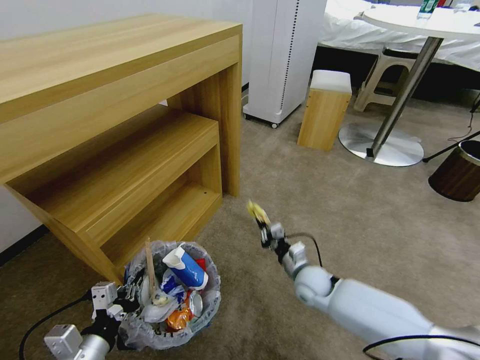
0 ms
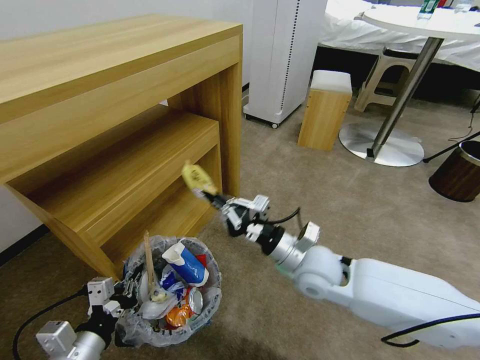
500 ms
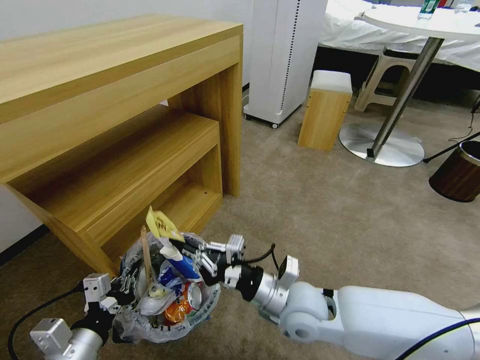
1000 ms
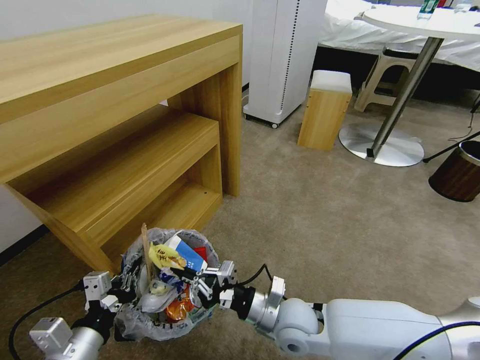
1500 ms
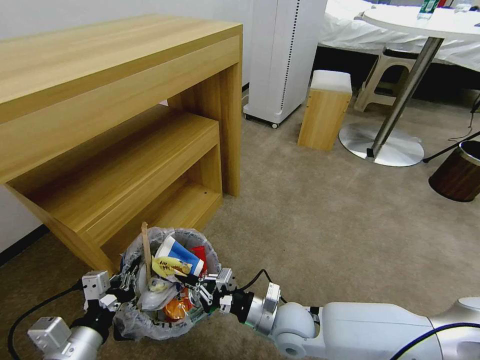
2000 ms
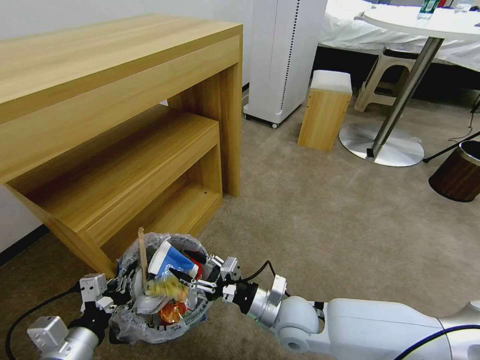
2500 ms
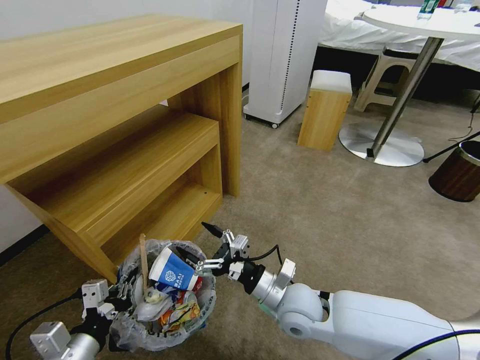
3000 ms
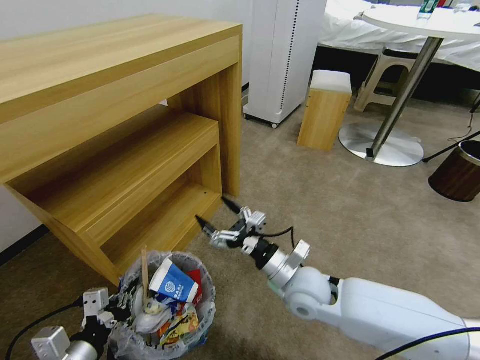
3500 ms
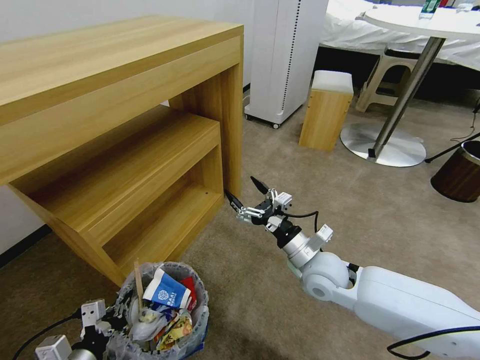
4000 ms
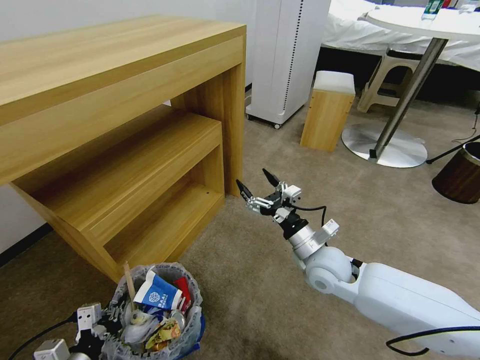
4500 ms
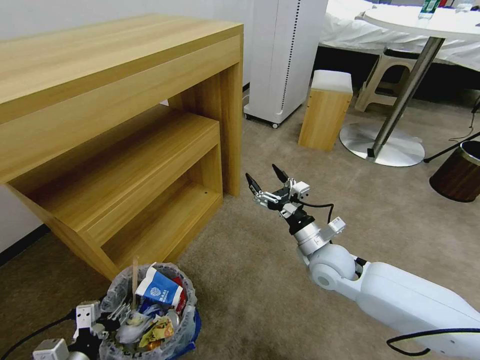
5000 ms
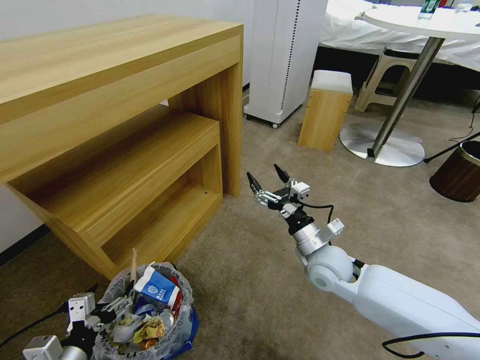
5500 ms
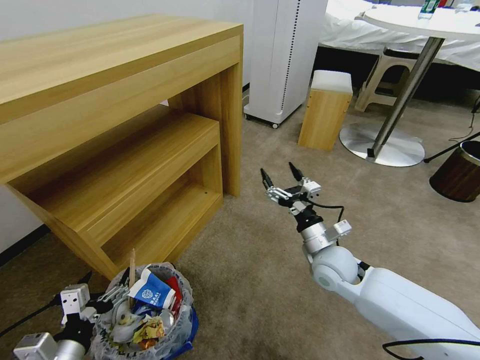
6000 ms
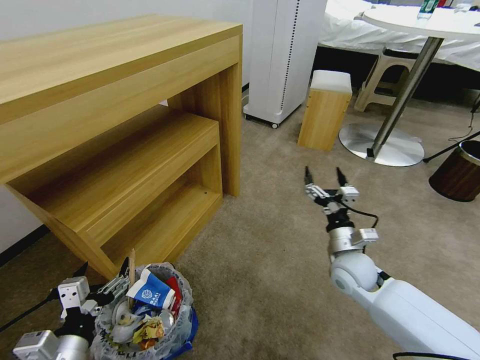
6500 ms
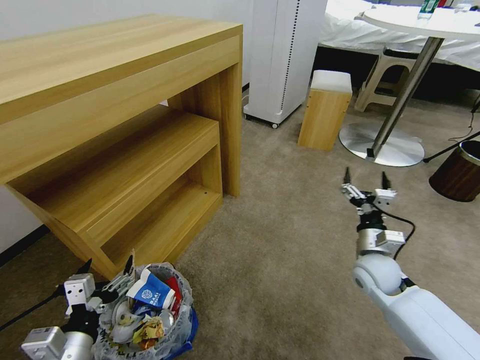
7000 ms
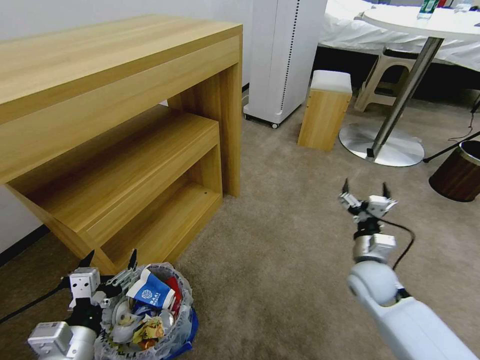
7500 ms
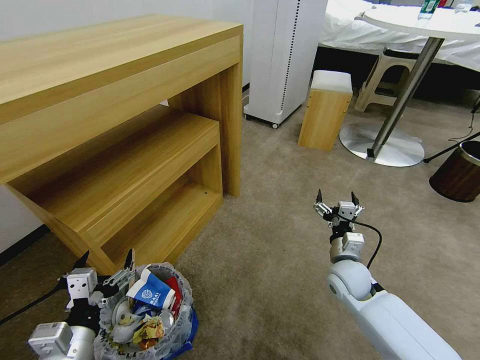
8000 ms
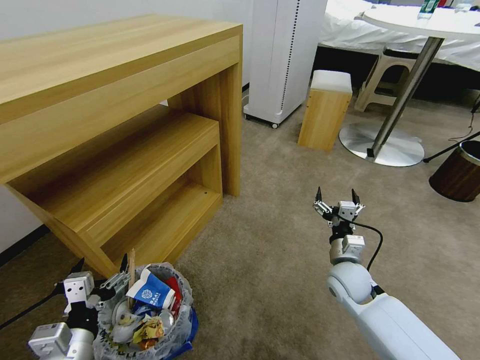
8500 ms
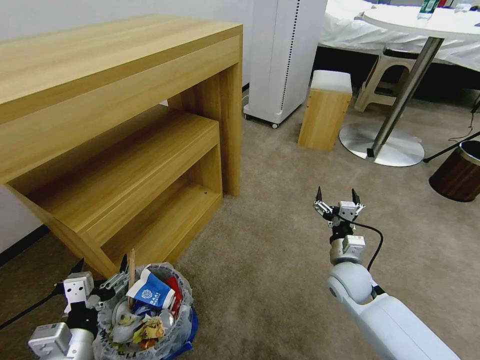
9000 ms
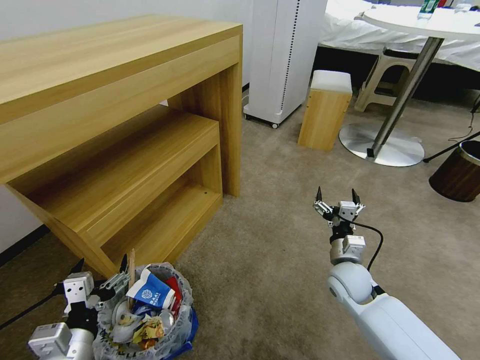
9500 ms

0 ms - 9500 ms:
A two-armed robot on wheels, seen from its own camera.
Task of the whole recording: Pick up the trash bin and place the garbage on the floor into it.
0 ms - 2000 ms: The right gripper heads backward, to the left and upward, covering some 15 cm.
2000 ms - 4000 ms: The right gripper moves forward, upward and to the right, some 15 cm, and opens up. Meanwhile the left gripper travels downward by roughly 5 cm.
4000 ms - 5500 ms: The left gripper opens its fingers.
5500 ms - 7500 ms: The right gripper moves to the right, about 10 cm, while the left gripper heads upward, covering roughly 5 cm.
7500 ms - 9500 ms: The grippers move only a little.

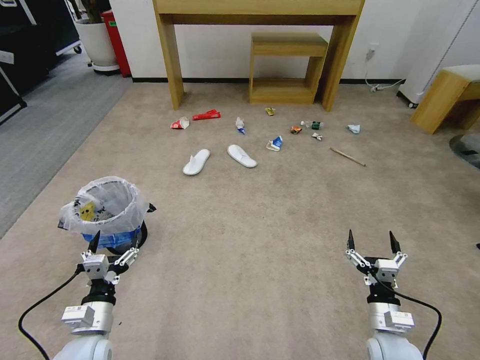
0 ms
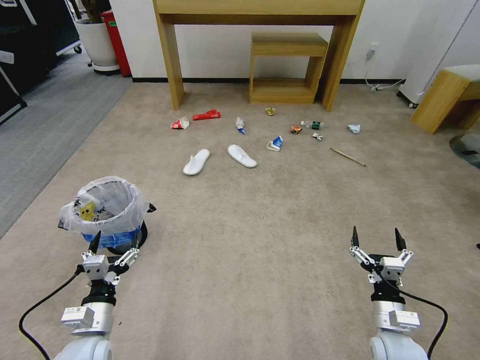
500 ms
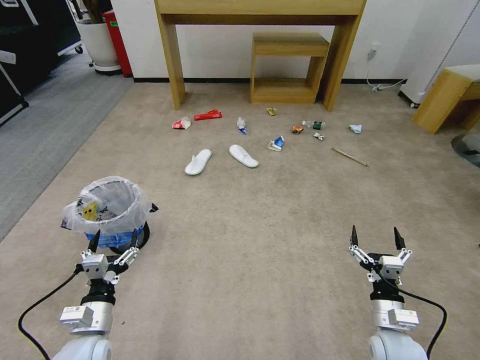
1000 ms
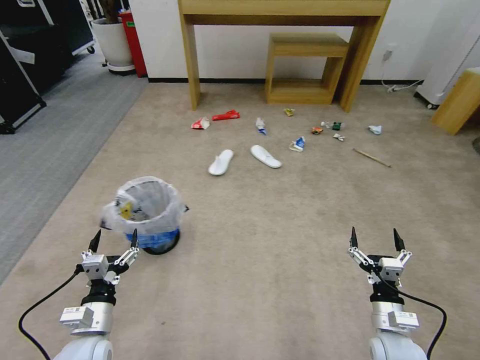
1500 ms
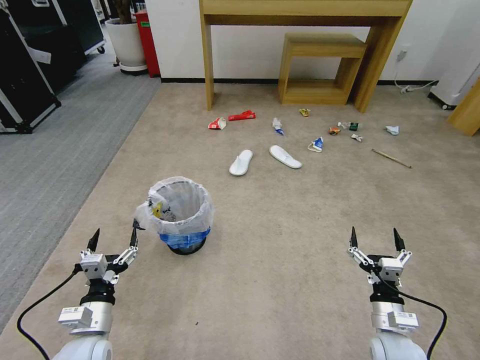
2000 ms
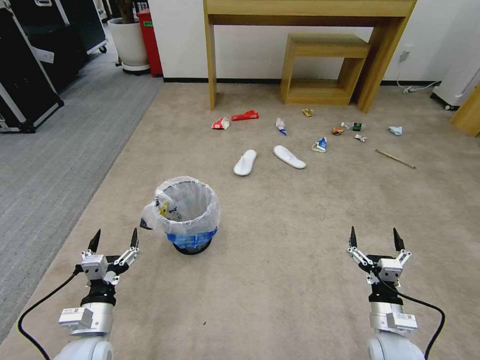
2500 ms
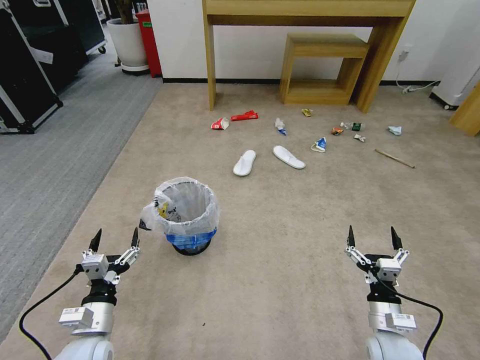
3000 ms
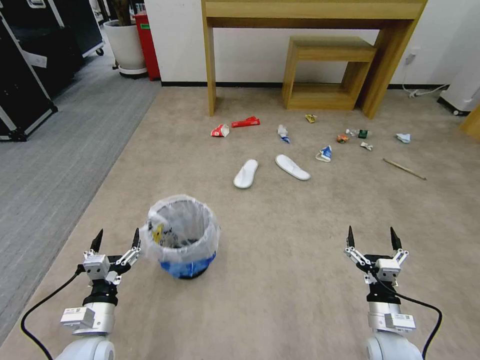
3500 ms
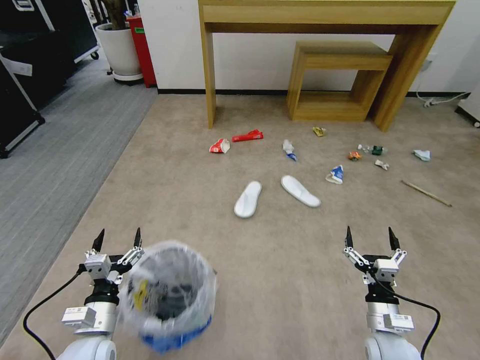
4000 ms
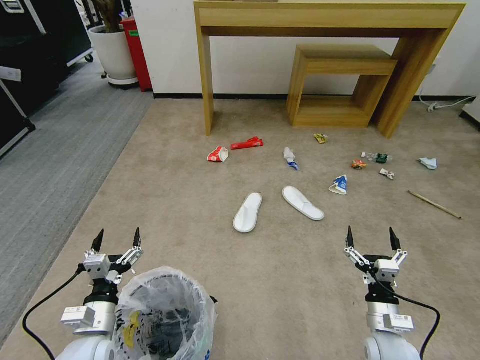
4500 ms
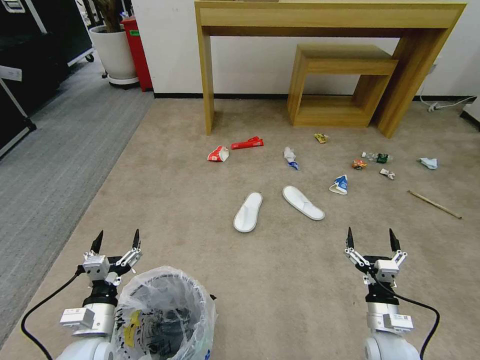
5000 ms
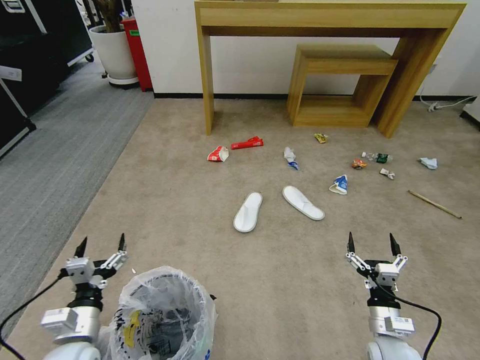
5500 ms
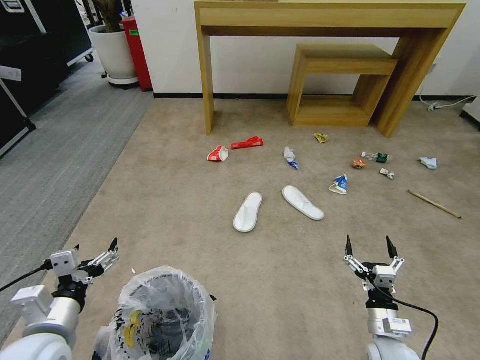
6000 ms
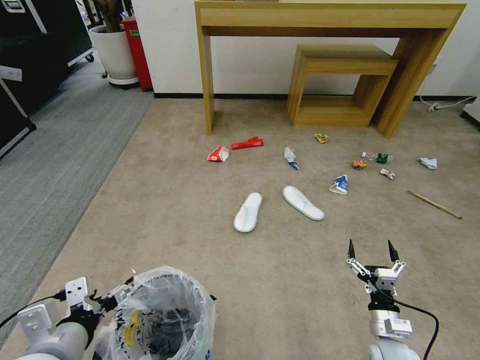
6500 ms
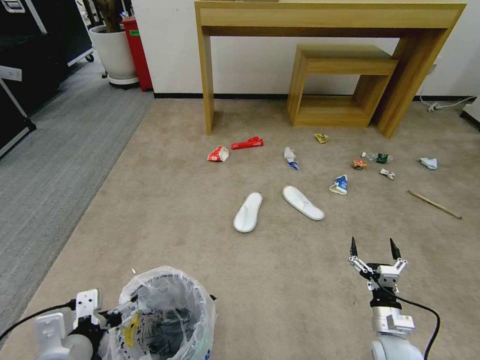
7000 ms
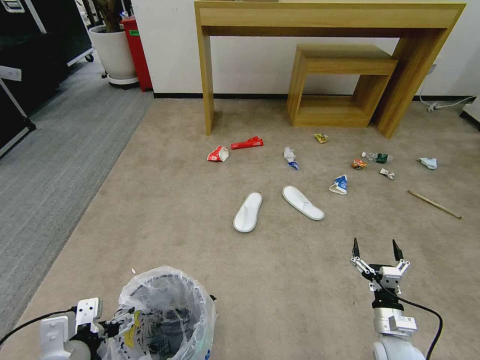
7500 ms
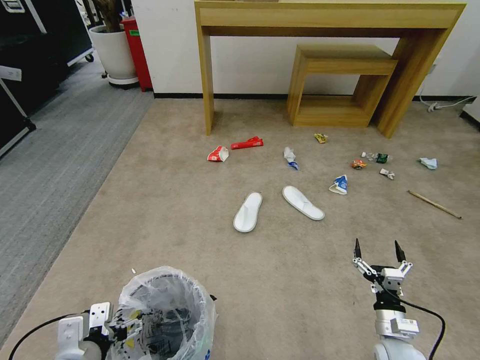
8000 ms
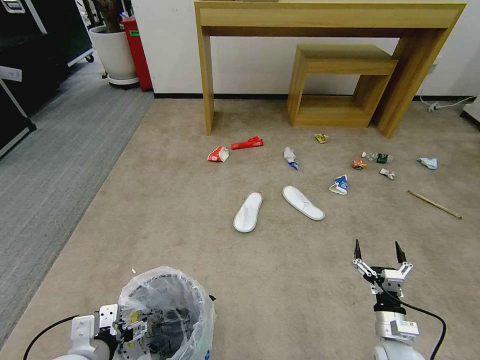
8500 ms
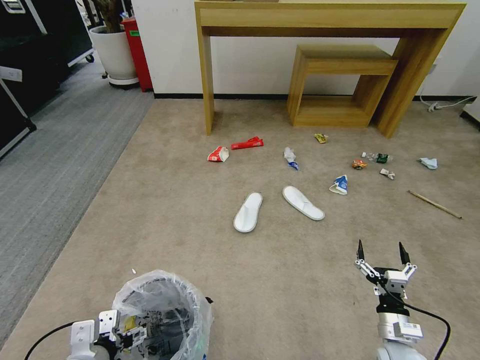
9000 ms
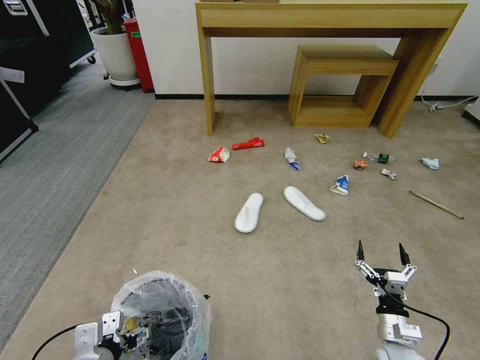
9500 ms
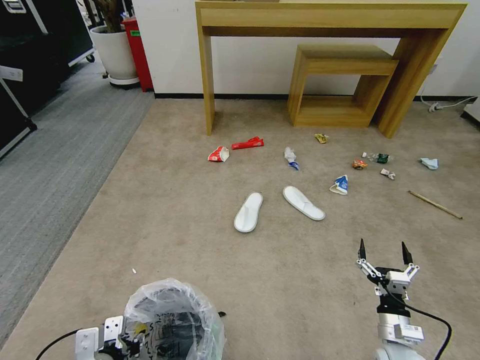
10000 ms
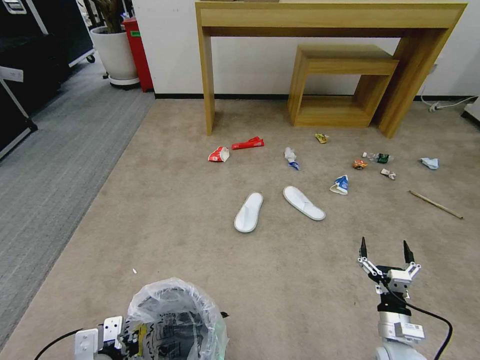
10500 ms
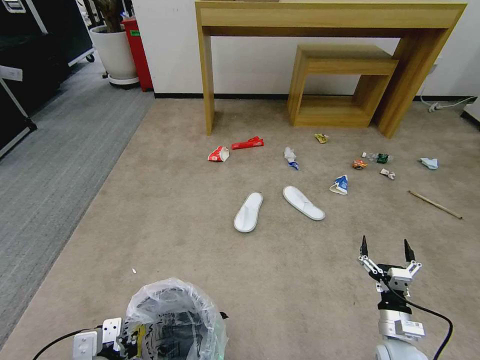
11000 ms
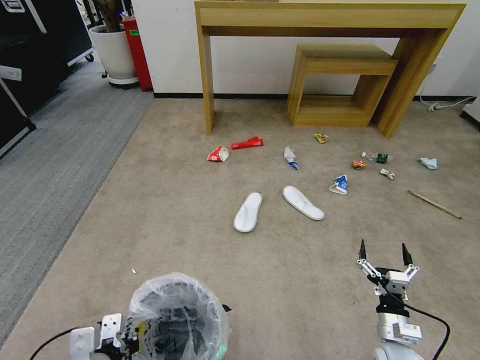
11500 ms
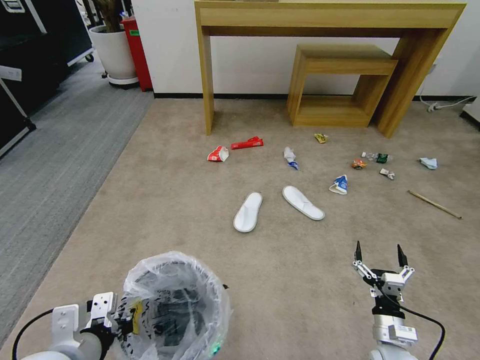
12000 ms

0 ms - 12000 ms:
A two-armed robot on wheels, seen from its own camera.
Task of the whole recording: Pick up the trash bin and place the garbage on the floor into it.
4000 ms - 6000 ms: The left gripper shifts roughly 10 cm upward.
6000 ms - 8000 ms: The left gripper ends up some 5 cm from where it was.
8000 ms - 10000 ms: The left gripper closes up.
10000 ms - 12000 ms: The left gripper is displaced upward by roughly 10 cm, and closes up.

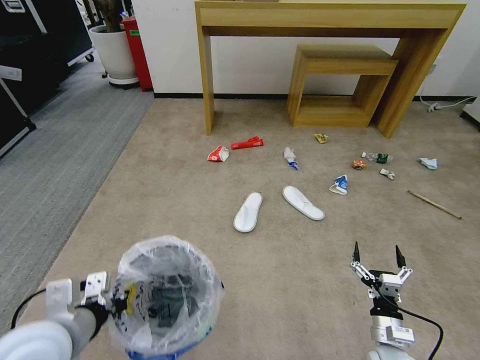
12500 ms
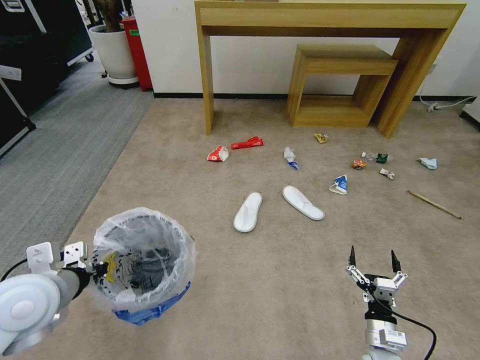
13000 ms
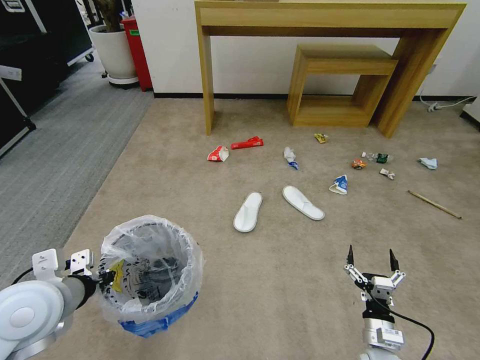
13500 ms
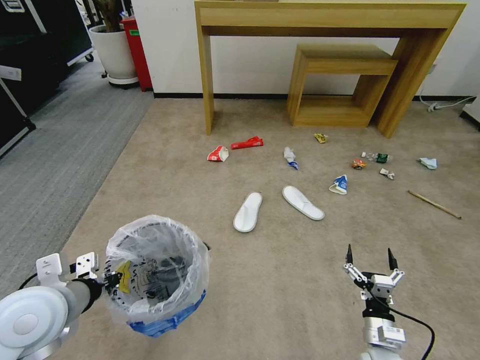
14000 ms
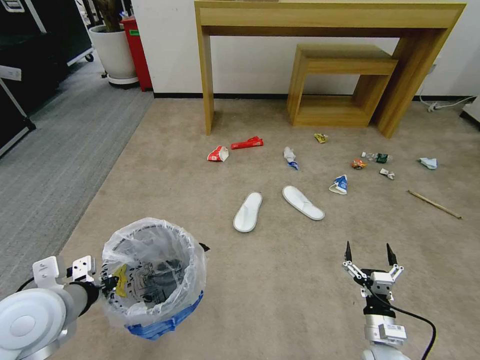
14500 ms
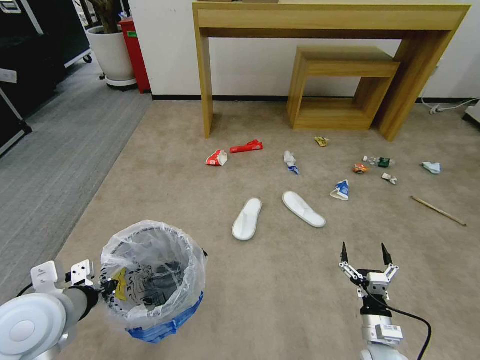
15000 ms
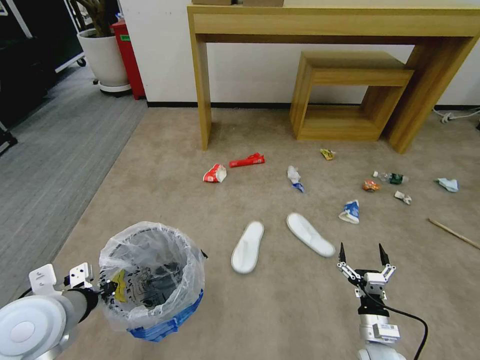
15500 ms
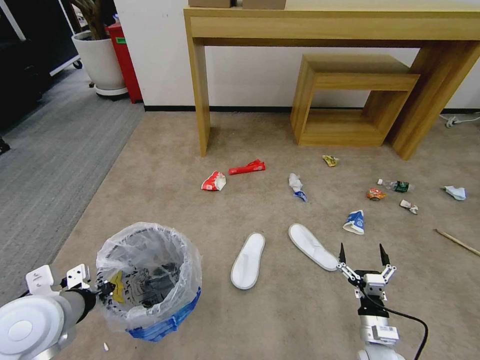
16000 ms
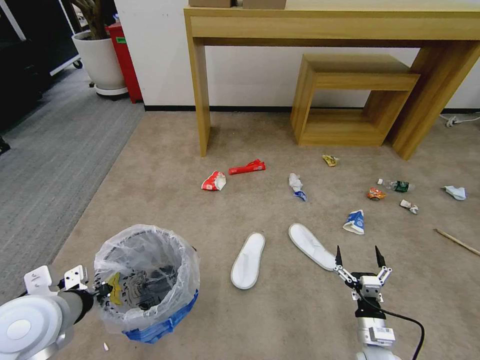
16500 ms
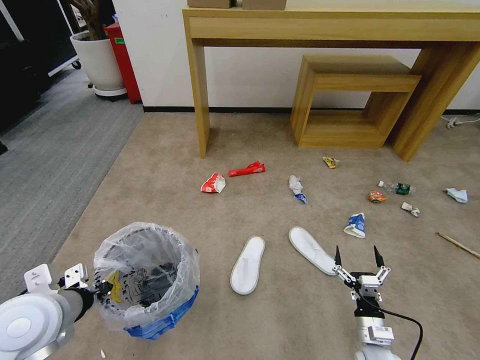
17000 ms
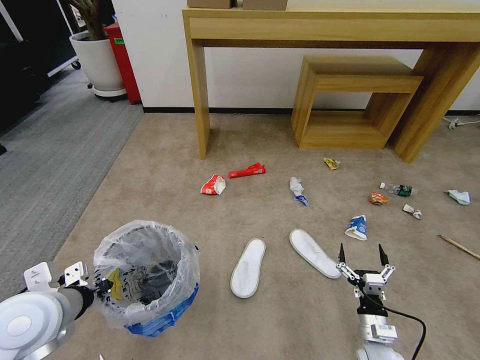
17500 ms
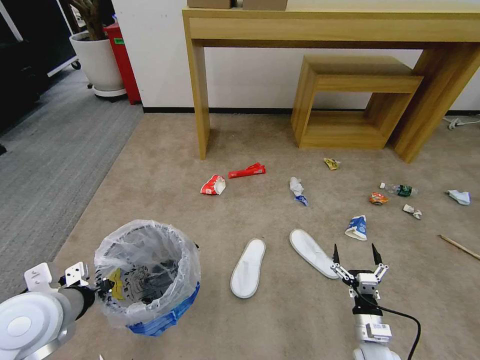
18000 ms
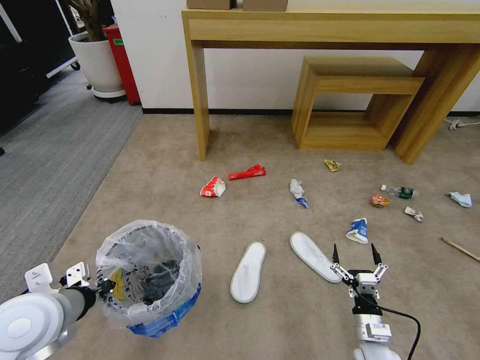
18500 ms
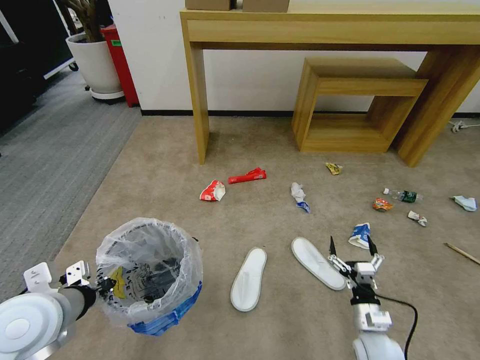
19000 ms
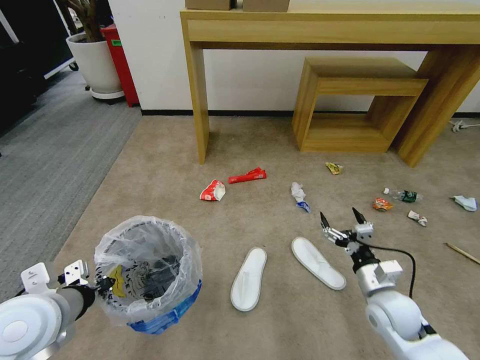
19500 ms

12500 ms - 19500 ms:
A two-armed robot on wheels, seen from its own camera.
Task of the whole recording: Pick up the trash bin and place the garbage on the floor into it.
12500 ms - 14500 ms: The left gripper ends up about 5 cm from where it was.
16000 ms - 17500 ms: The two grippers keep their place.
17500 ms - 19500 ms: The right gripper travels upward and forward by some 15 cm.
